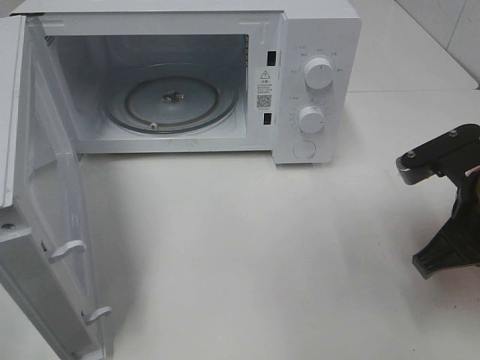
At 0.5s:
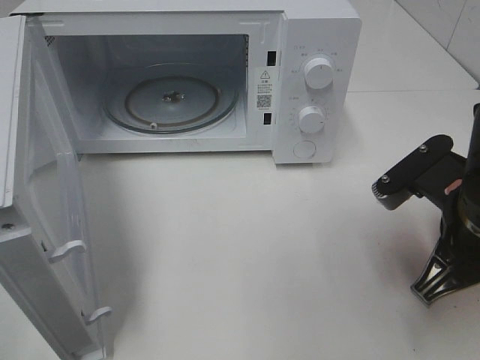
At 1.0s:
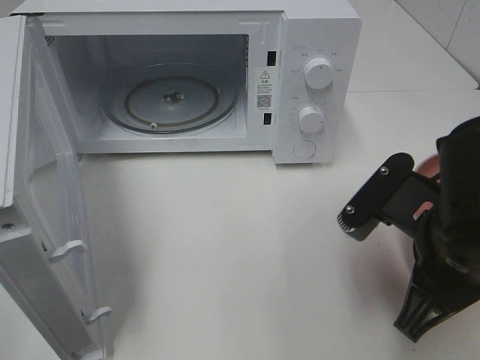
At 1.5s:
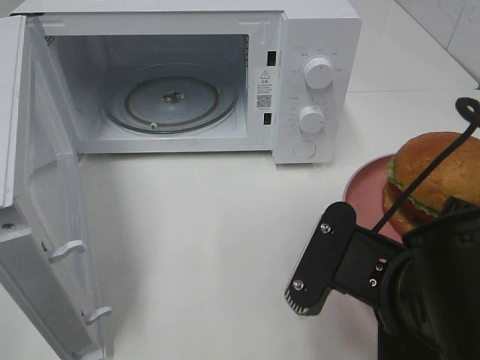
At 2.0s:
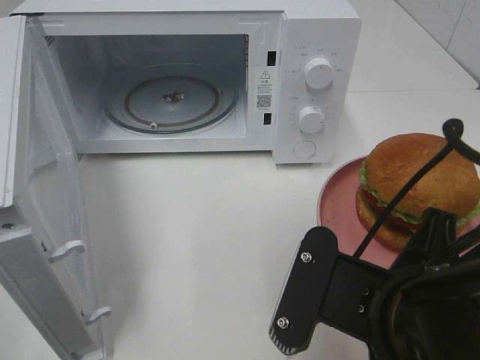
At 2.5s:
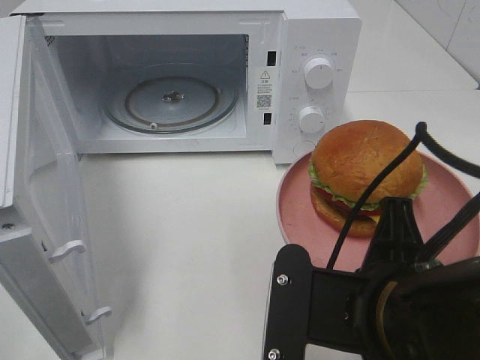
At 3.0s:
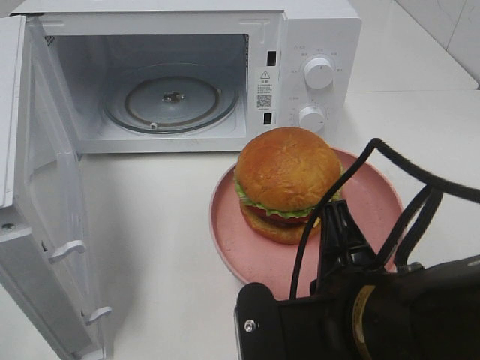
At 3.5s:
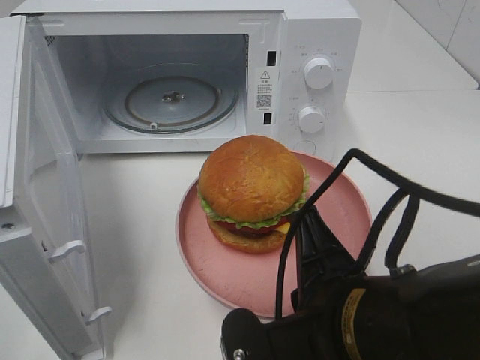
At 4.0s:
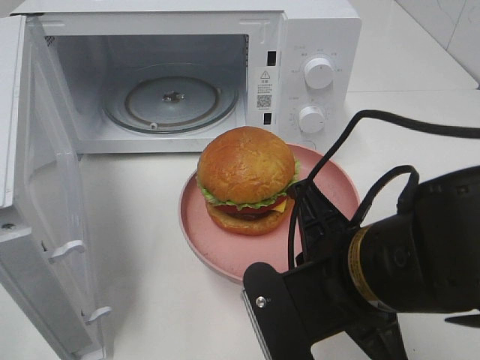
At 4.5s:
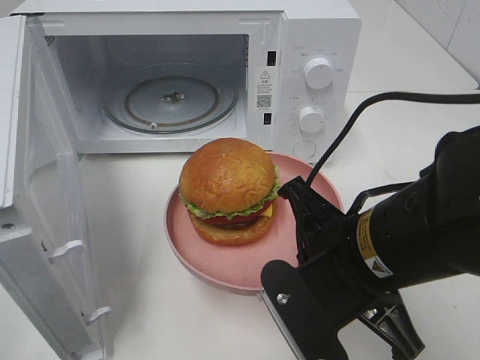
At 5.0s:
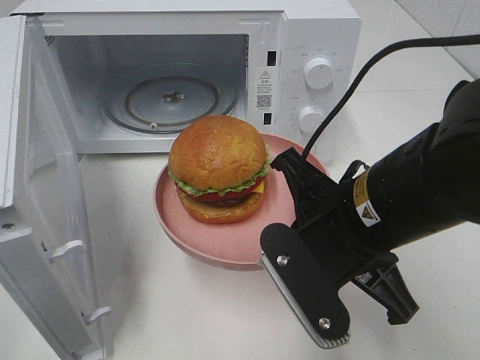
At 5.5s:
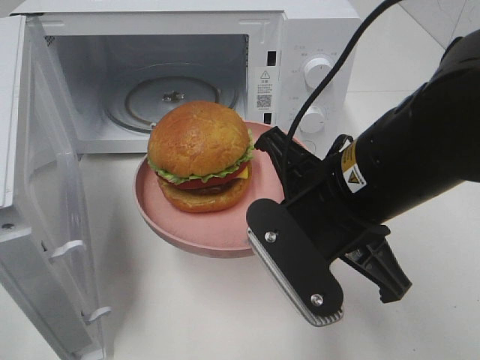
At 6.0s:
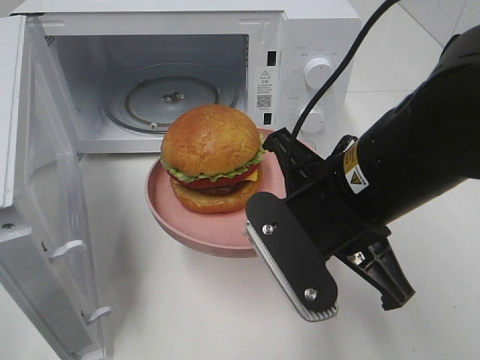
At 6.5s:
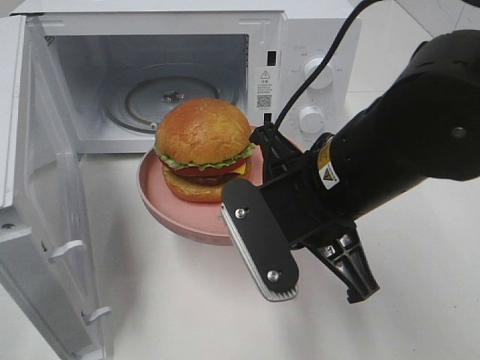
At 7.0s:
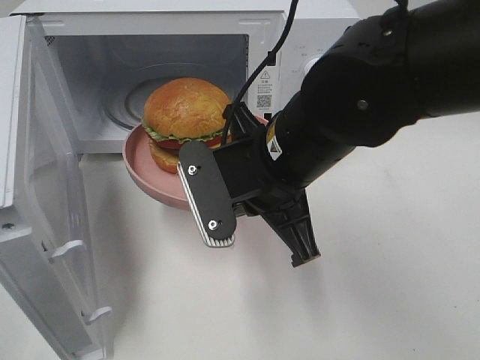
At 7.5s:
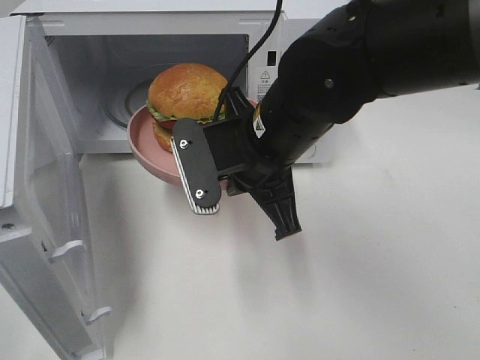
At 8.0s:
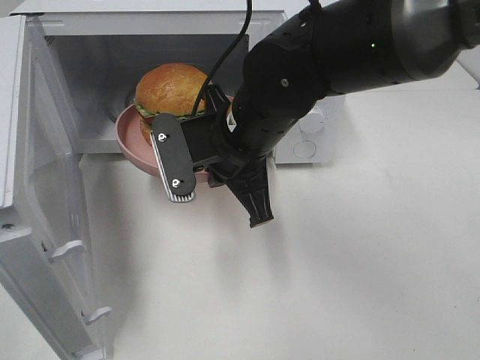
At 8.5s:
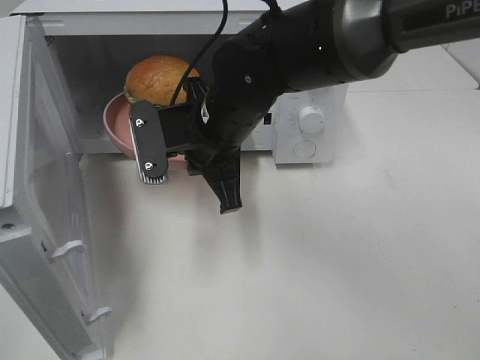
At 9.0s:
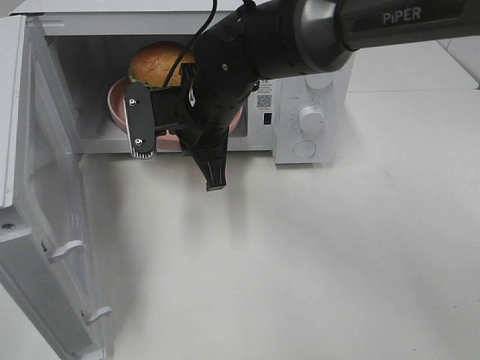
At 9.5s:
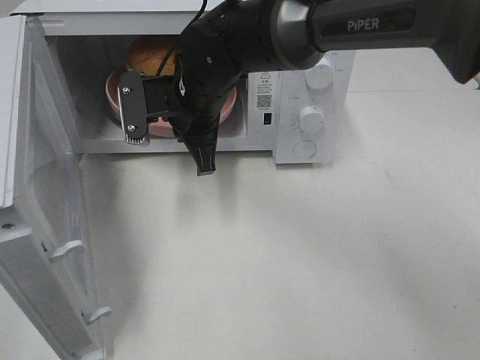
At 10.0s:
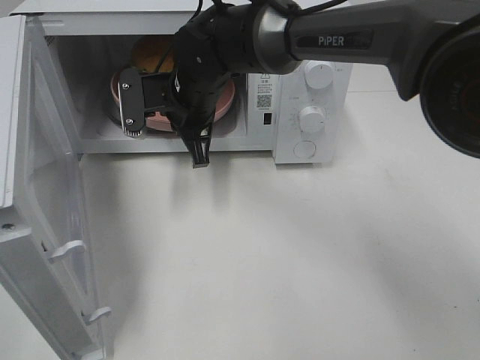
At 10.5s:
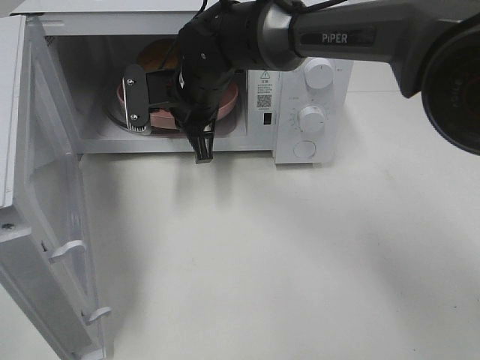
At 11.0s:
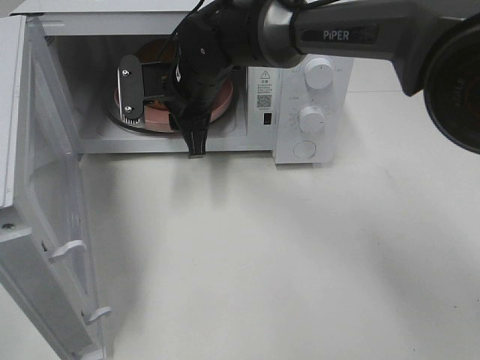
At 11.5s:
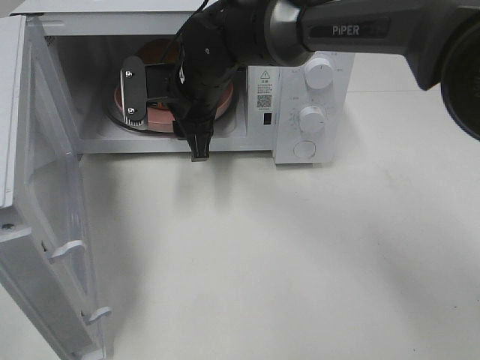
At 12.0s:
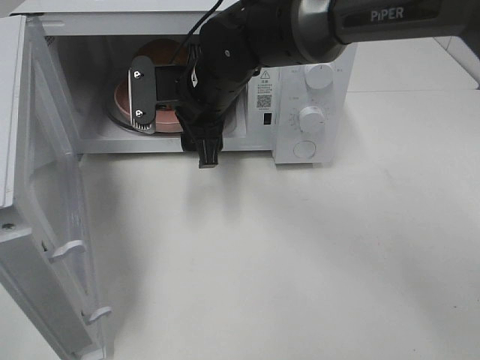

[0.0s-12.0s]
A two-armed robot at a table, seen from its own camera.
Task of the whole recording: Heat the burger.
Step, 0.0s to 10.5s: Right hand: place the plate in the microwave.
0.0s to 2.0s: The right gripper goes approximately 15 cm to the left and backward.
4.0s to 6.0s: The right gripper ends up some 5 cm from where it was.
6.0s to 8.0s: The right gripper goes approximately 15 cm forward and to the left.
8.0s to 10.0s: The right gripper is displaced forward and to the left by roughly 15 cm.
10.0s to 12.0s: The right gripper opens up.

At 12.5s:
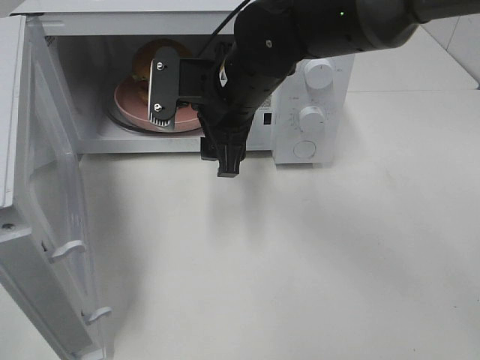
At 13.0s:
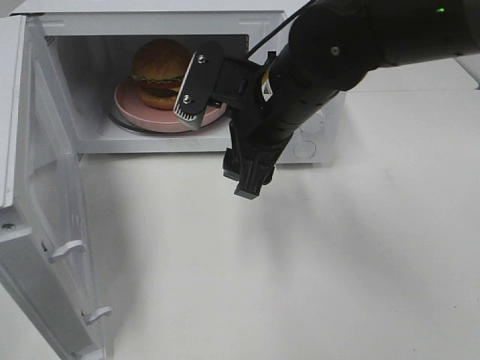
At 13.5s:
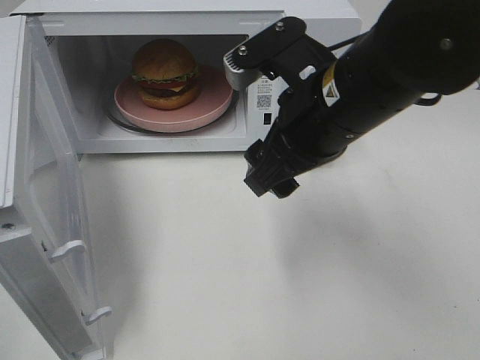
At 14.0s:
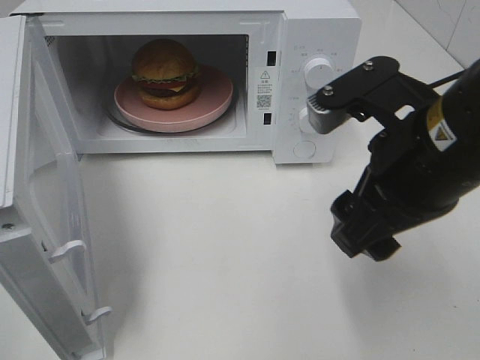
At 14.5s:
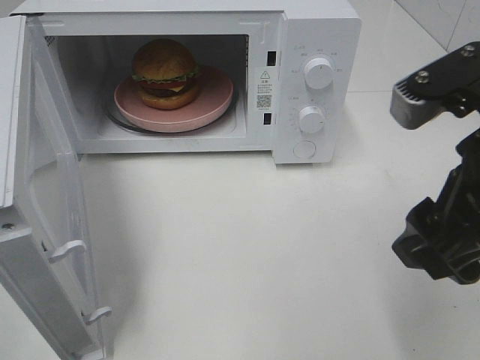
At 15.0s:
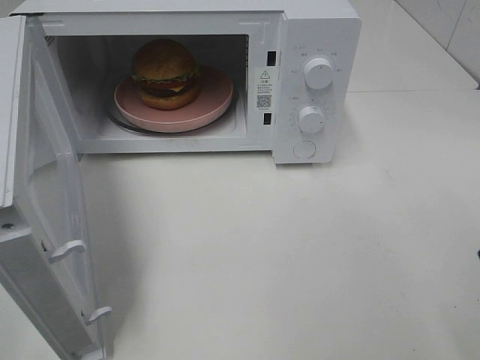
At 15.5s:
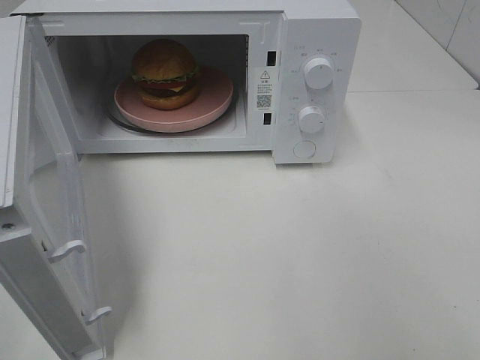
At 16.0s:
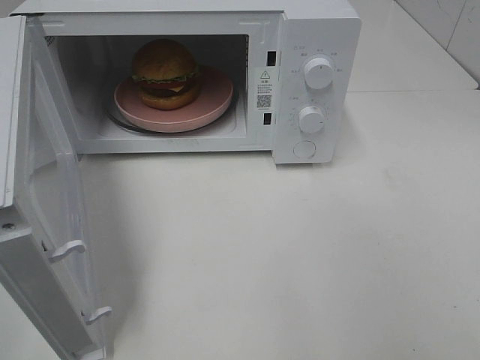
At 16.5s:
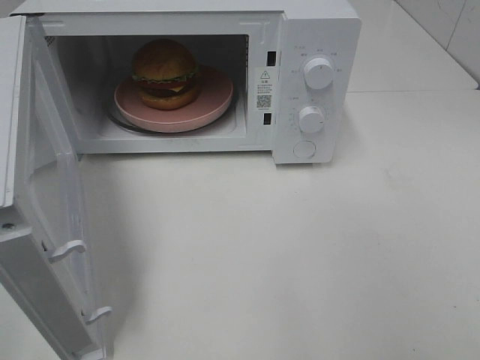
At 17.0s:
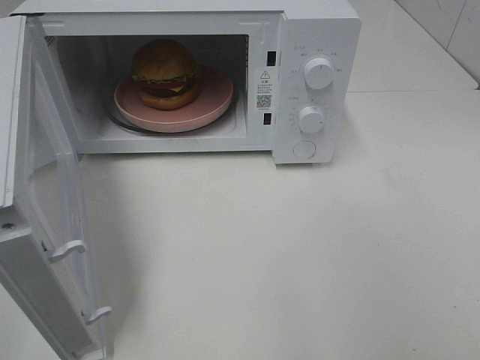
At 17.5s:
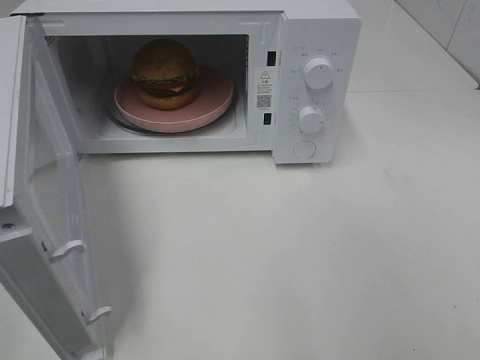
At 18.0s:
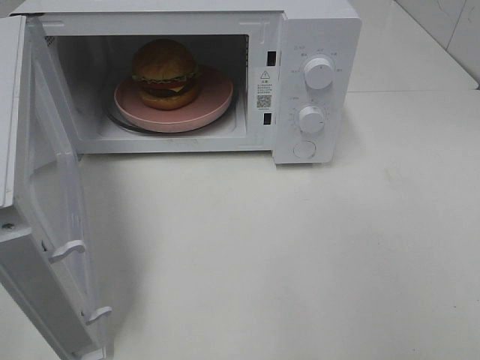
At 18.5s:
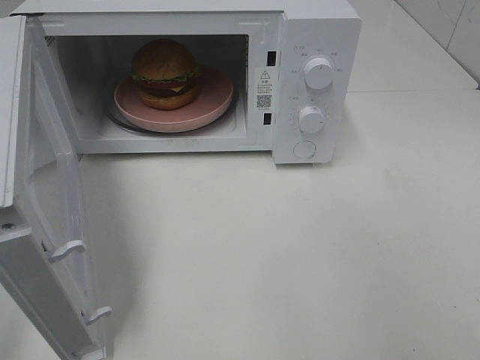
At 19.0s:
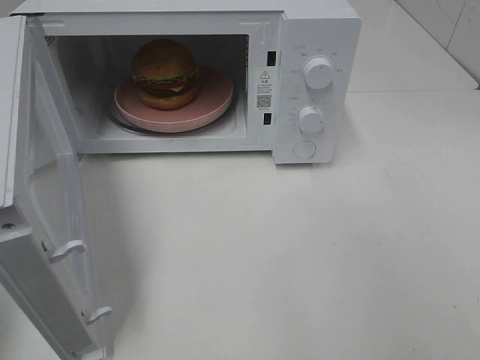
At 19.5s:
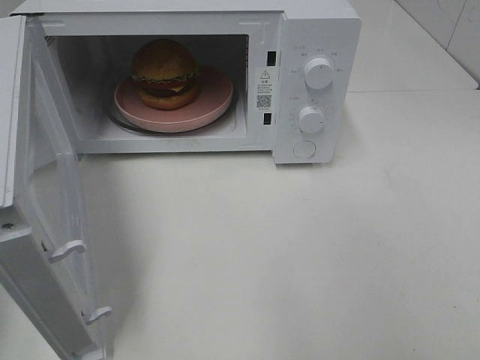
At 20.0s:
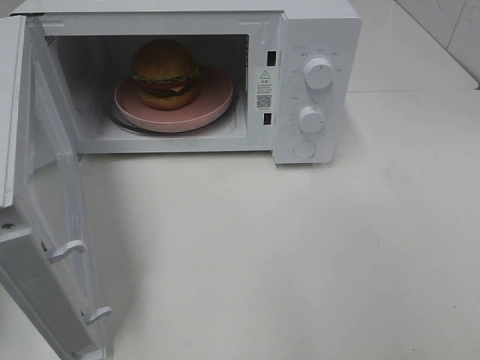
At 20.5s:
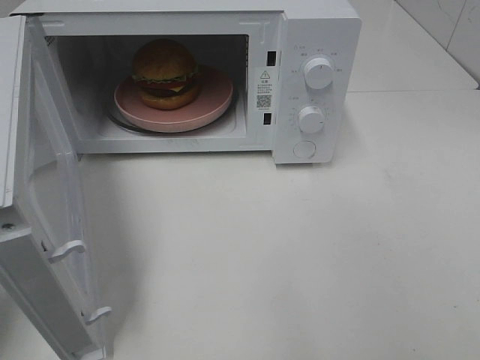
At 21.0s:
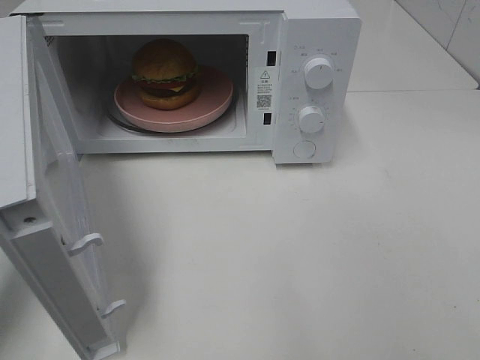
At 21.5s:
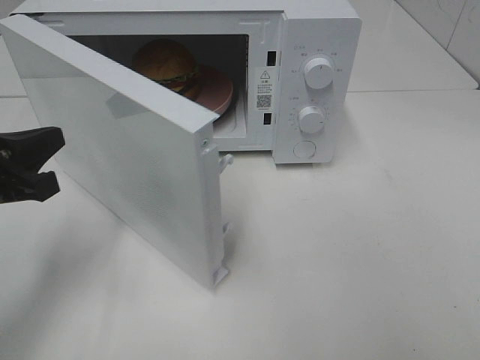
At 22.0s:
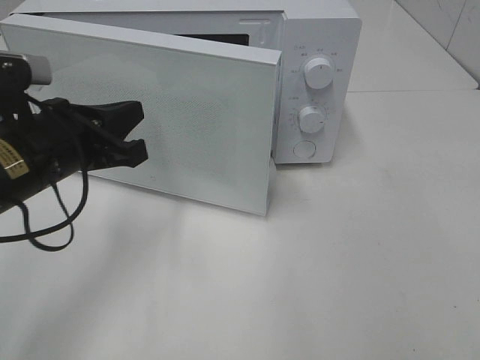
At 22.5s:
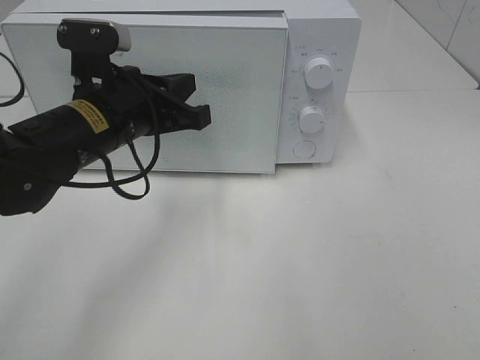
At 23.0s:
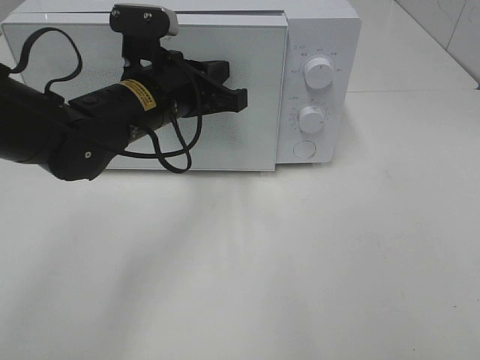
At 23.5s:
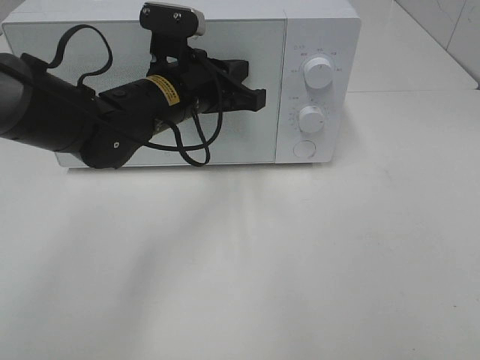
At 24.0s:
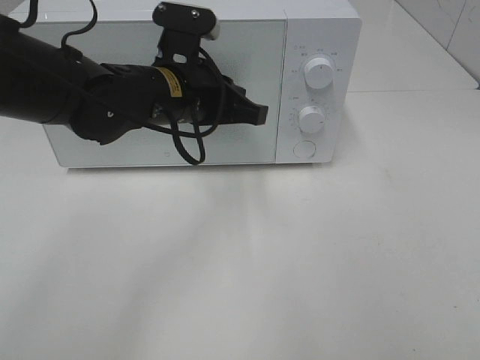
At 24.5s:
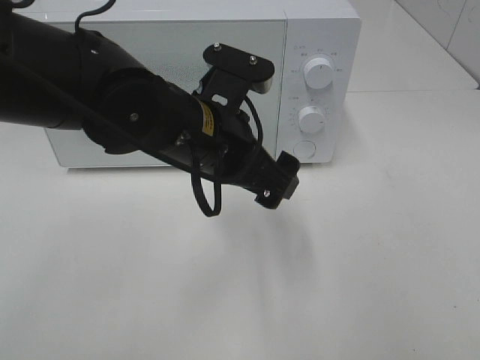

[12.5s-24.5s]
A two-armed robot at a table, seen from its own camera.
Task of the whole recording: Heat the burger.
Step, 12.5s to 23.5s: Left hand: close the microwave door.
12.5s to 14.5s: The right gripper goes roughly 25 cm backward and to the right.
14.5s to 16.5s: The right gripper moves backward and to the right, some 20 cm.
20.5s to 22.5s: The left gripper travels to the right and forward by approximately 20 cm.
22.5s to 24.5s: The left gripper heads to the right, covering some 10 cm, and opens.

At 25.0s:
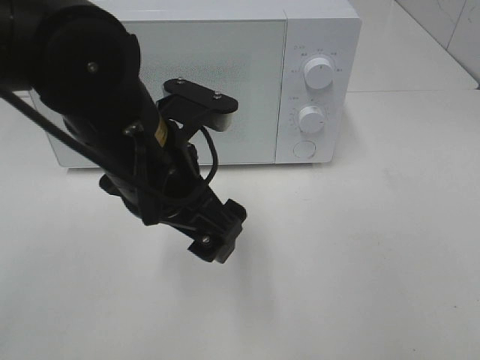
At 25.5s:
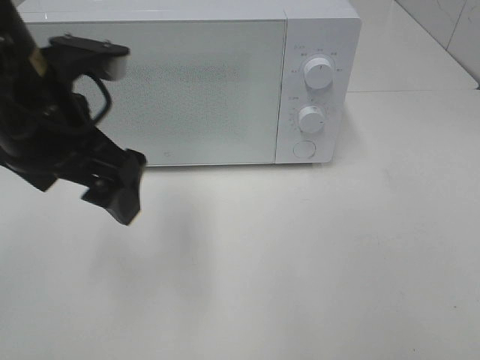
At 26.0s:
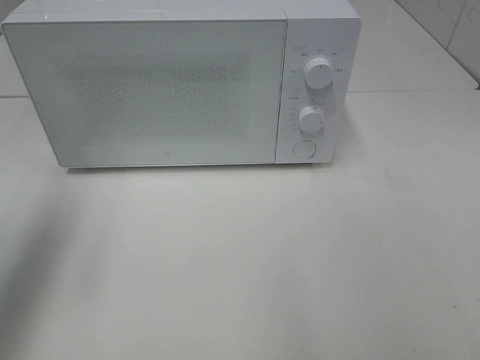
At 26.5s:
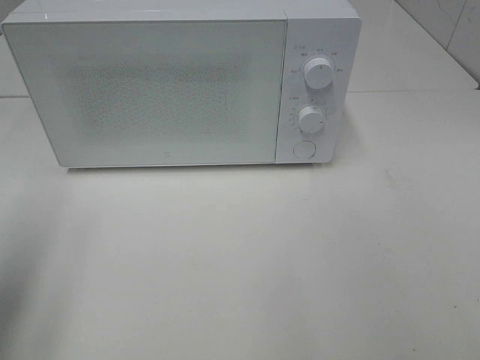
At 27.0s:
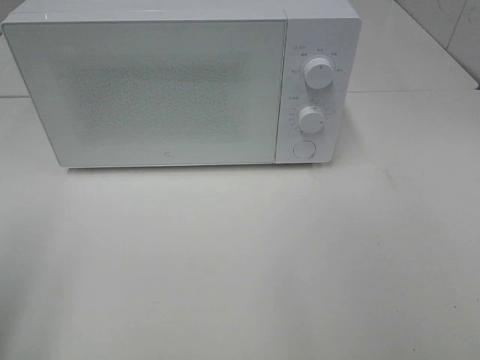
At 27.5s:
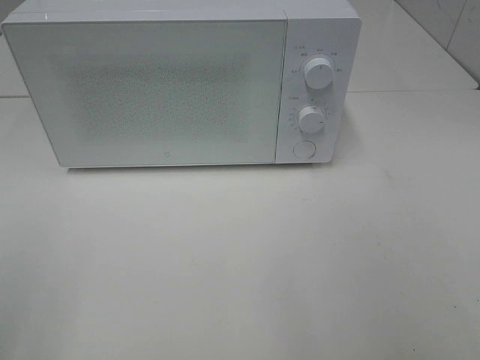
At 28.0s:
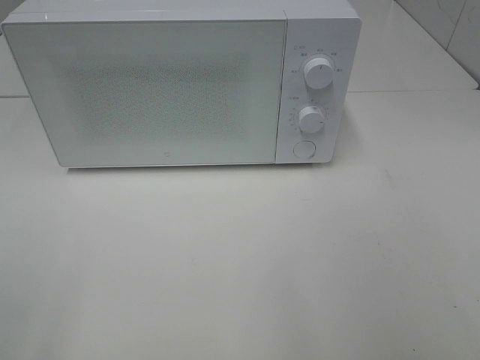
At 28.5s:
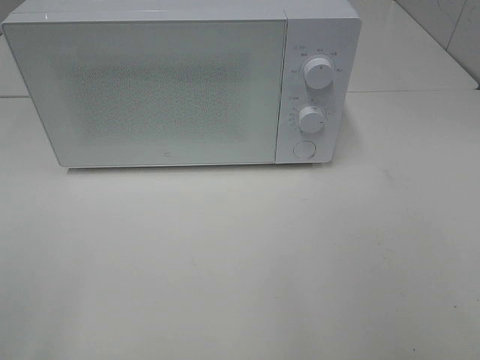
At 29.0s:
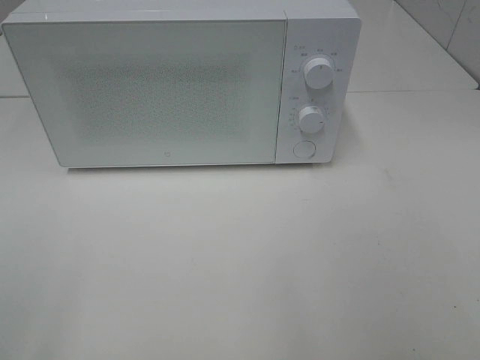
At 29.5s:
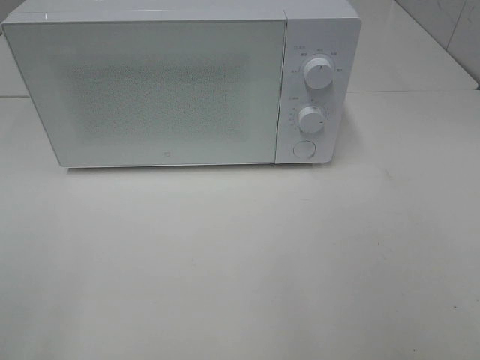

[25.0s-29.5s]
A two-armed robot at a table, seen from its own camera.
Task of the whole recording: Heat the burger.
25.0s to 27.0s: The left gripper moves to the left and backward, some 30 cm.
